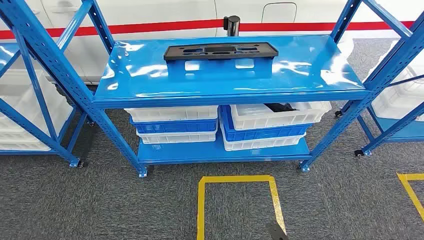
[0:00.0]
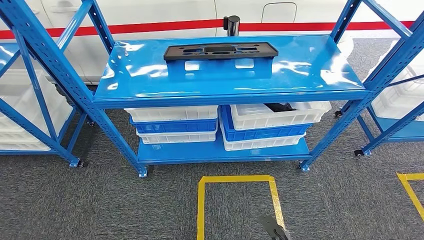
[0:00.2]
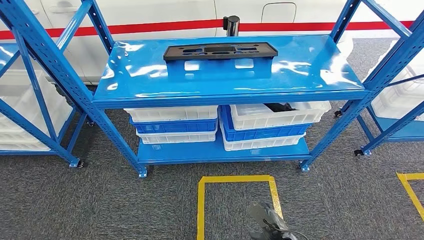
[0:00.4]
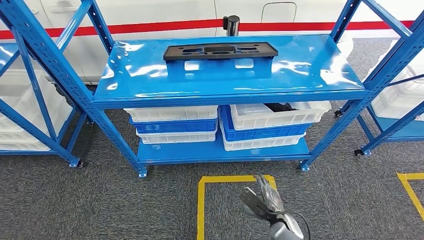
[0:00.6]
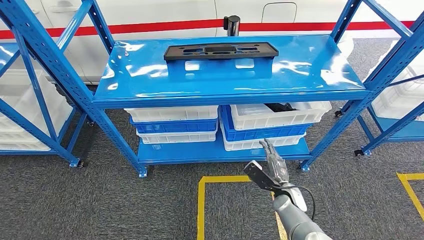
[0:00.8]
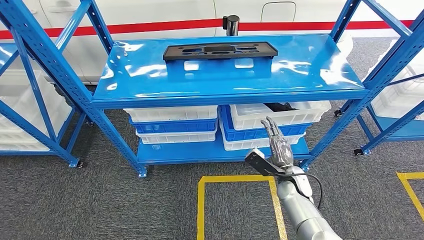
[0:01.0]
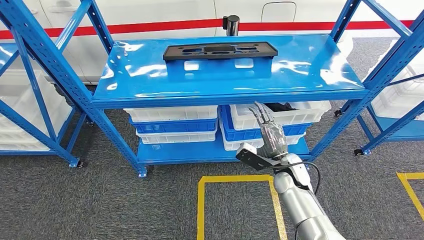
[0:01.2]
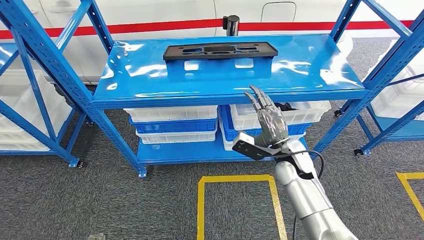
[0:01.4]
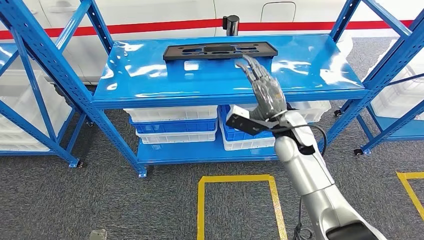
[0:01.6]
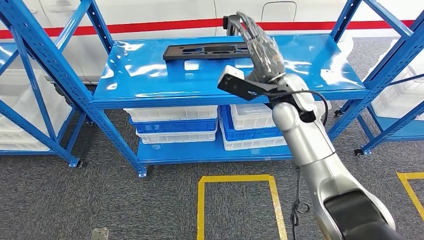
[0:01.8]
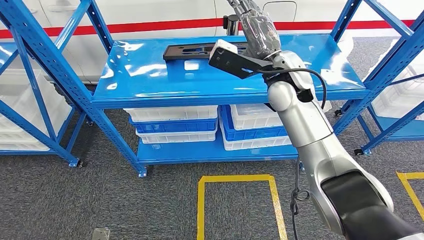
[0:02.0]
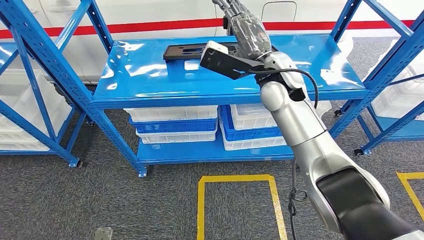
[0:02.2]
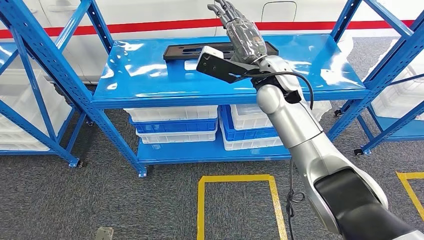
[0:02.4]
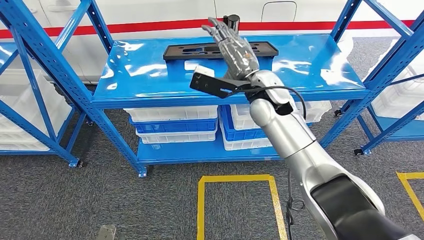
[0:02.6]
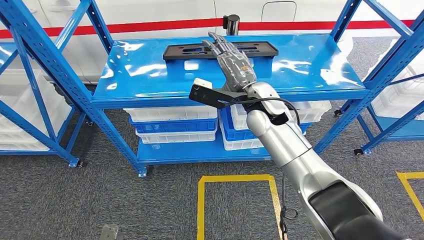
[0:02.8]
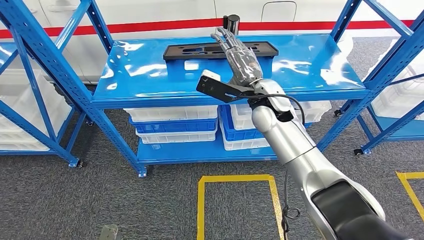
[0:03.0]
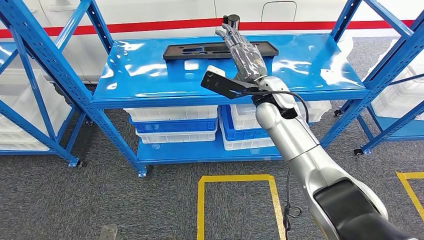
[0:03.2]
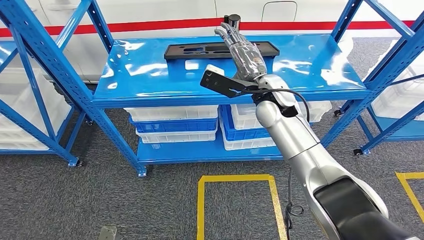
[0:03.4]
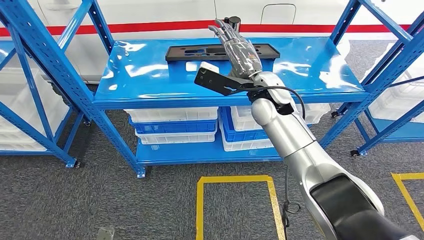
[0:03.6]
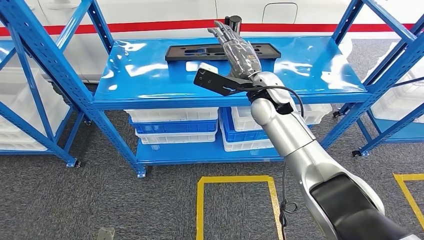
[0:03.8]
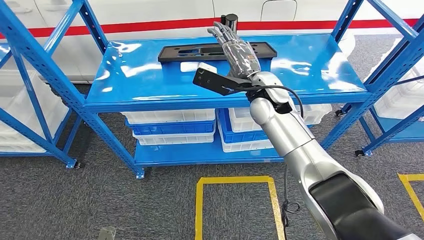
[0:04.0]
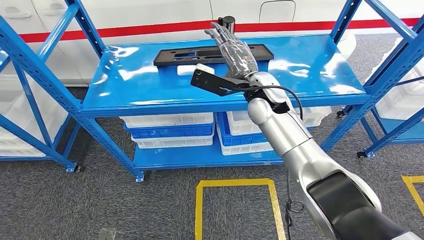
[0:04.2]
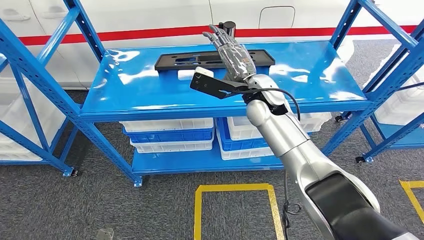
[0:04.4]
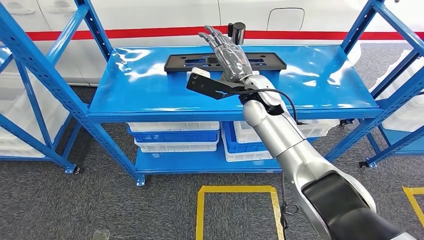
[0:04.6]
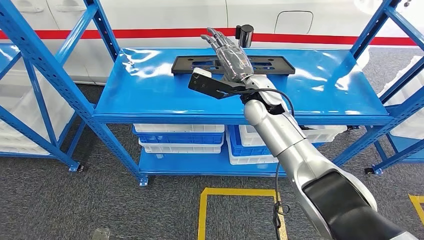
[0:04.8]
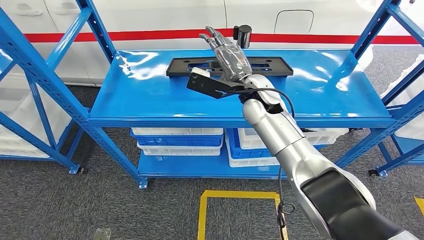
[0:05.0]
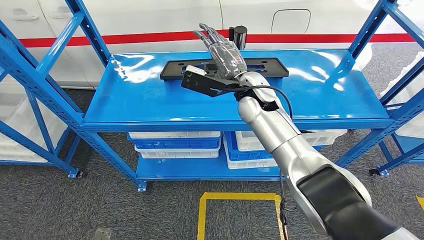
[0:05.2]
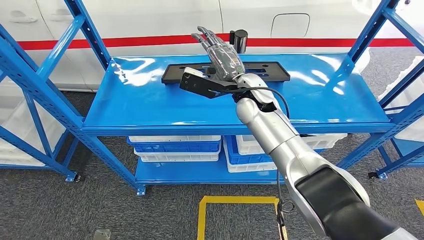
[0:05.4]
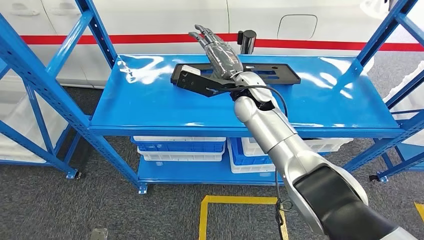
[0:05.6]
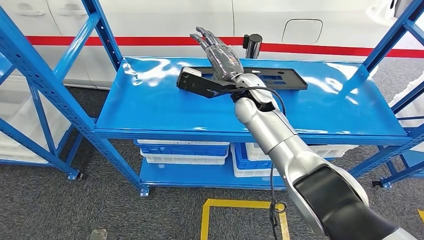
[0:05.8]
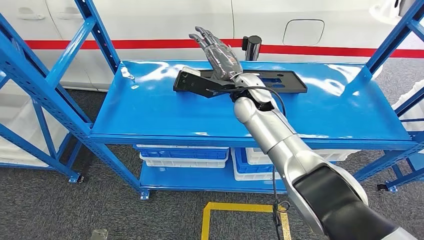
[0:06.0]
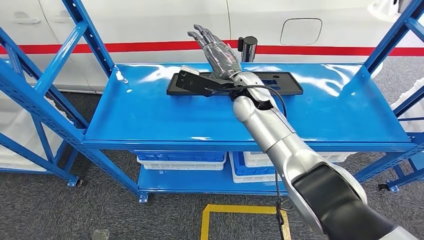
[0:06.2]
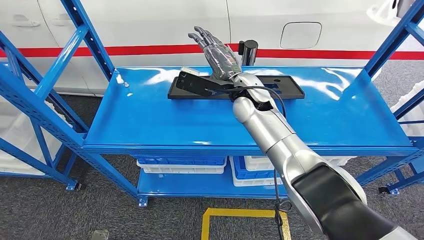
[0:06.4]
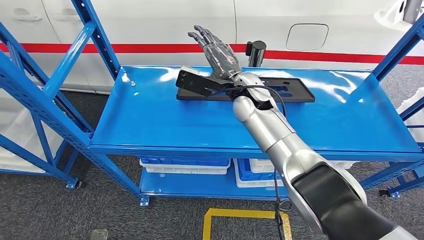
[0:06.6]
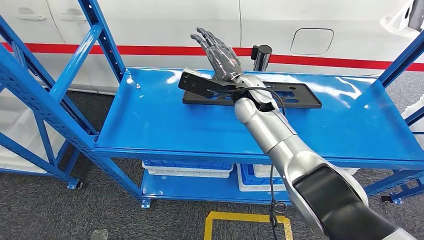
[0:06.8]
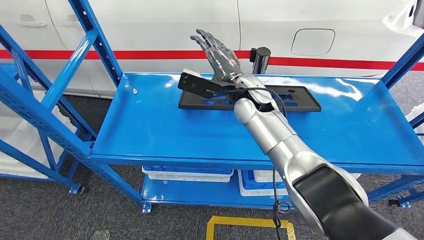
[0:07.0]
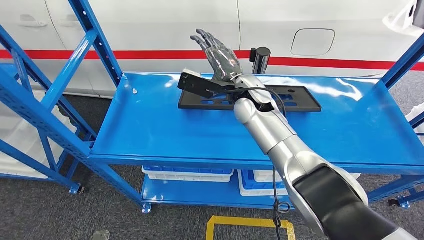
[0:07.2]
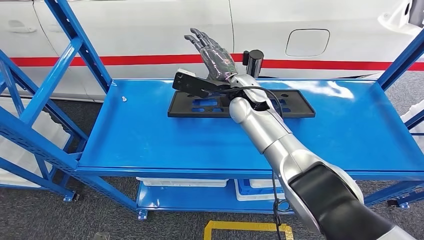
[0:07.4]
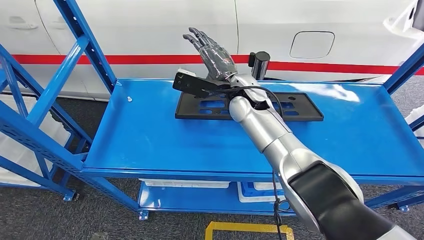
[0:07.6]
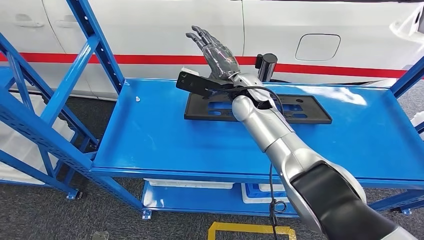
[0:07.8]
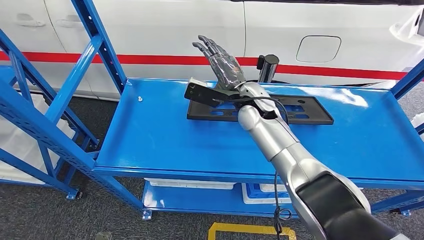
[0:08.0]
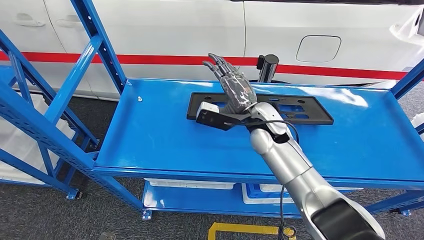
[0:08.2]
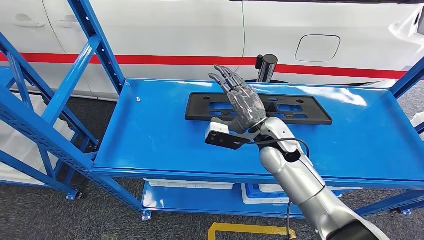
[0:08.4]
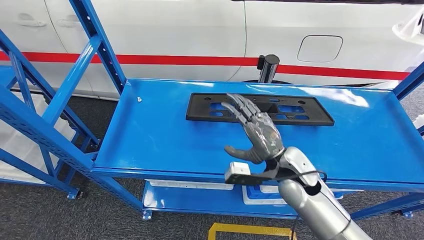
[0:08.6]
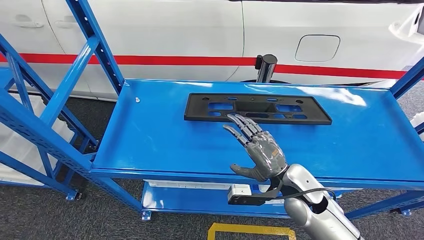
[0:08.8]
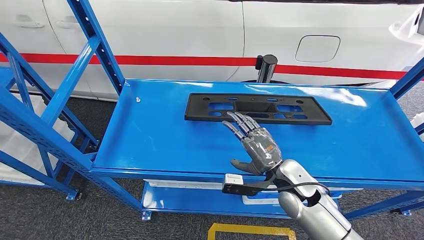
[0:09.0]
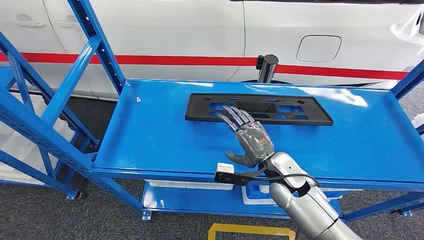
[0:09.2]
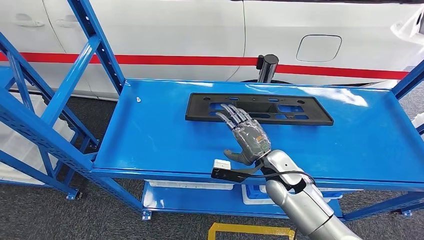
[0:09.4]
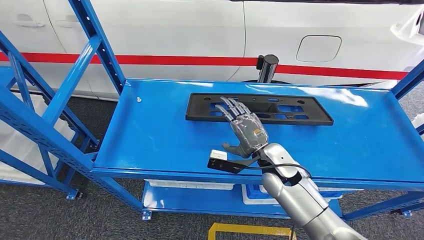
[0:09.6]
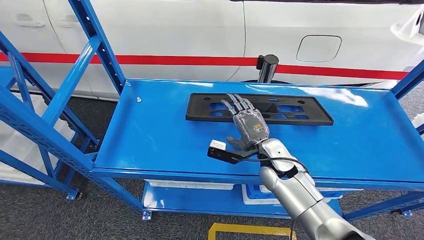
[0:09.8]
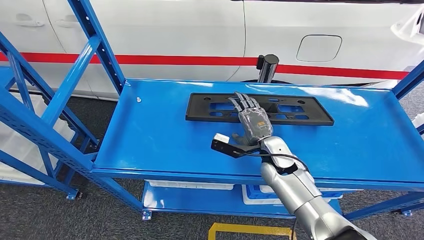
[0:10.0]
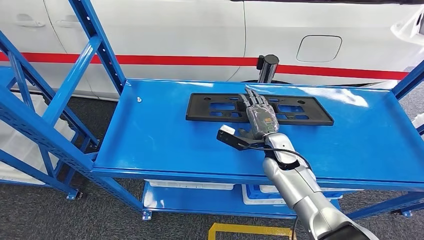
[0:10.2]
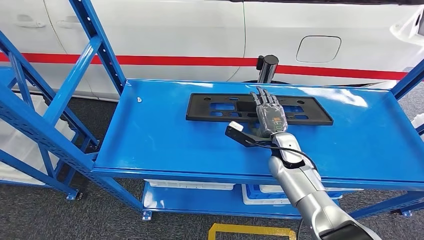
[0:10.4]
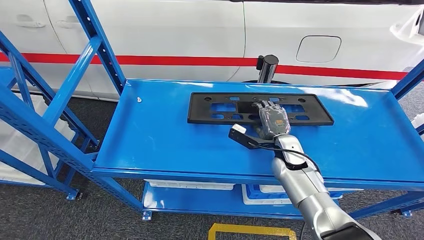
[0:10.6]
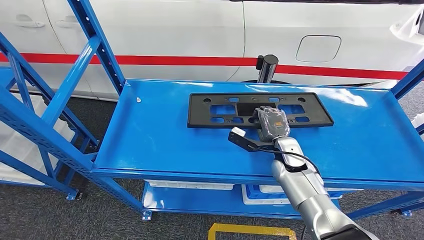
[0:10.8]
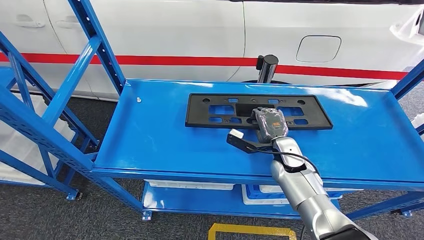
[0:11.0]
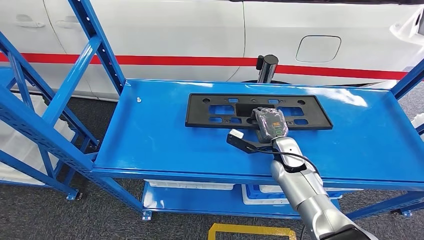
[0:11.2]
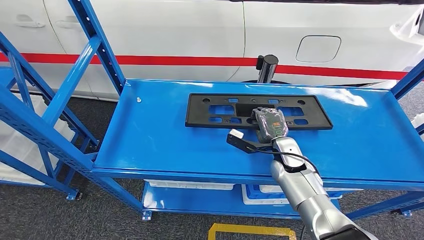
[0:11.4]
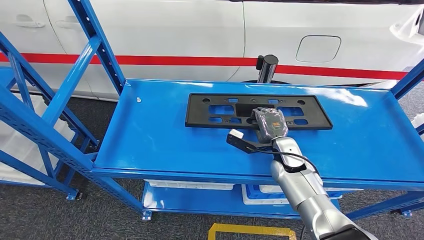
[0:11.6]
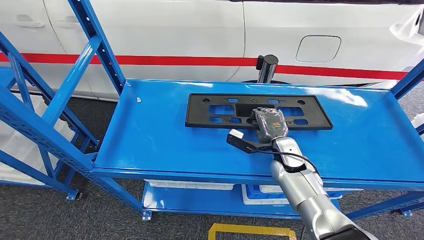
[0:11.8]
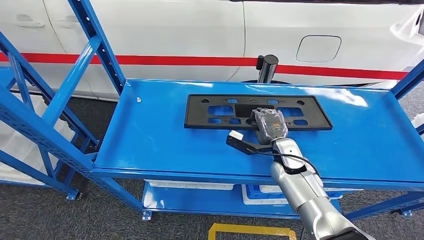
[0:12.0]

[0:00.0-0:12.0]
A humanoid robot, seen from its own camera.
0:01.6 to 0:03.0: The right hand heads upward and to the left, covering roughly 10 cm.
0:09.0 to 0:10.4: The right hand is displaced forward by about 10 cm.
0:10.4 to 0:12.0: The hands make only small movements.

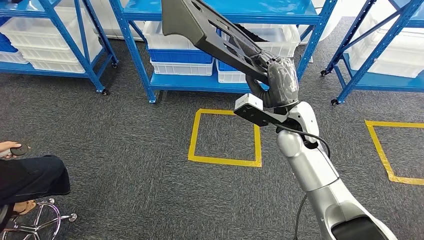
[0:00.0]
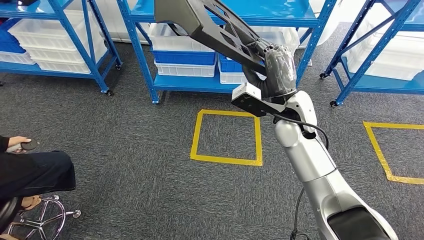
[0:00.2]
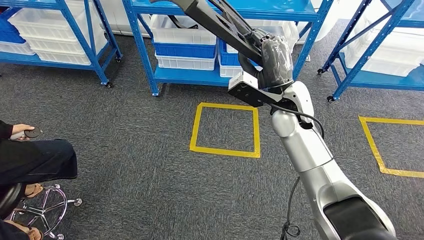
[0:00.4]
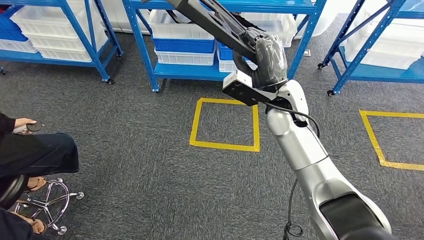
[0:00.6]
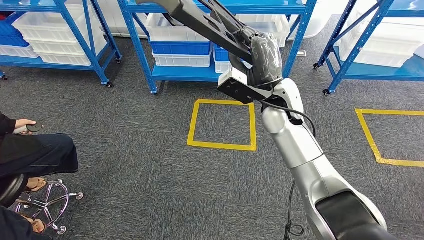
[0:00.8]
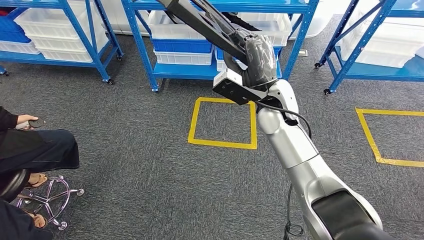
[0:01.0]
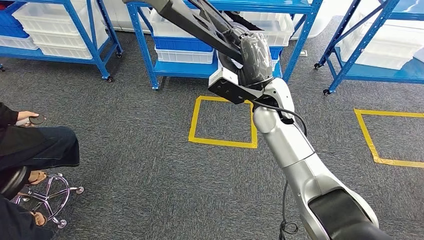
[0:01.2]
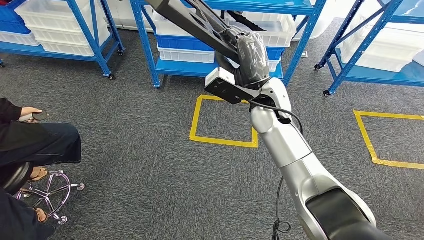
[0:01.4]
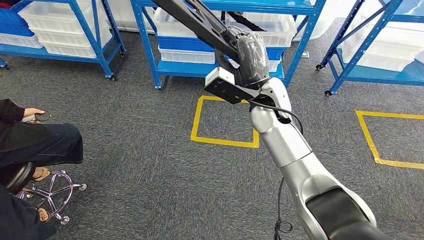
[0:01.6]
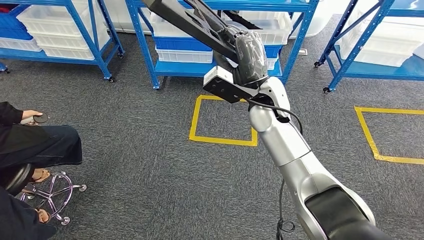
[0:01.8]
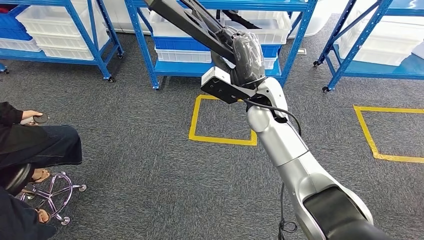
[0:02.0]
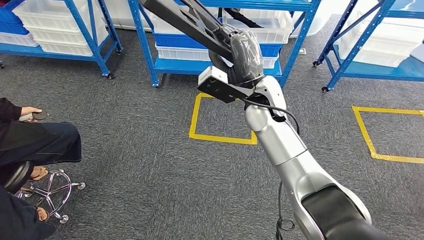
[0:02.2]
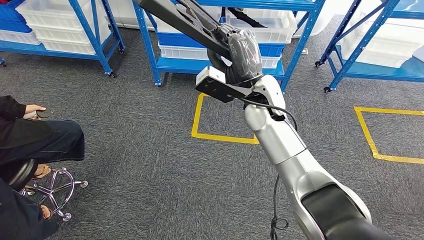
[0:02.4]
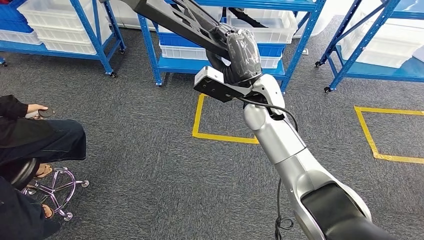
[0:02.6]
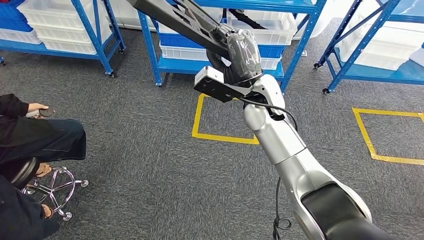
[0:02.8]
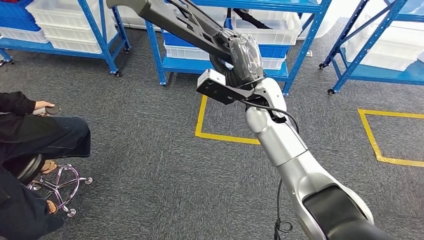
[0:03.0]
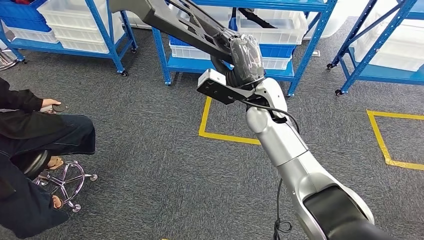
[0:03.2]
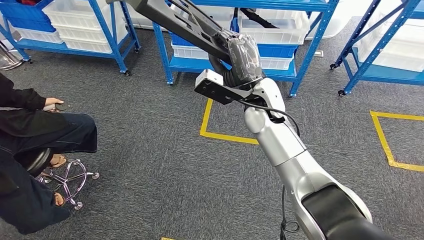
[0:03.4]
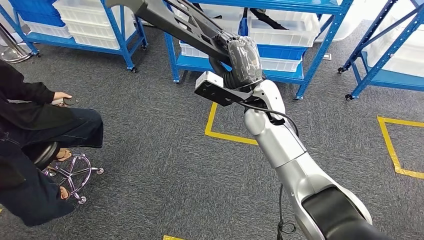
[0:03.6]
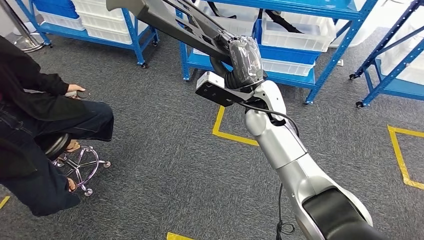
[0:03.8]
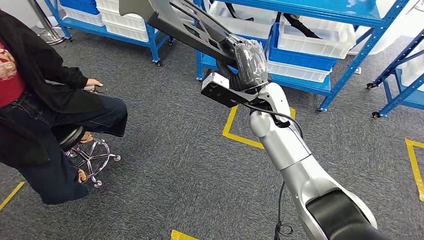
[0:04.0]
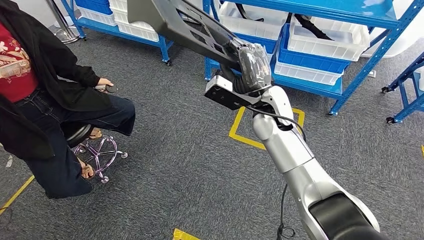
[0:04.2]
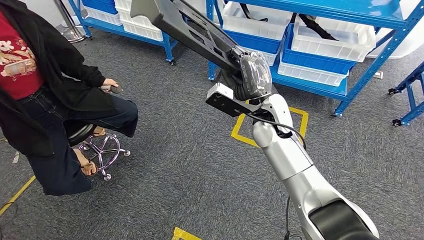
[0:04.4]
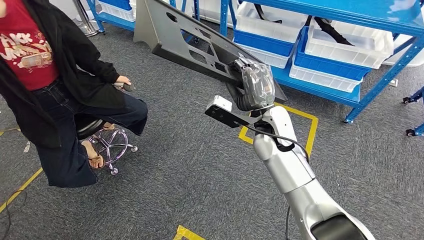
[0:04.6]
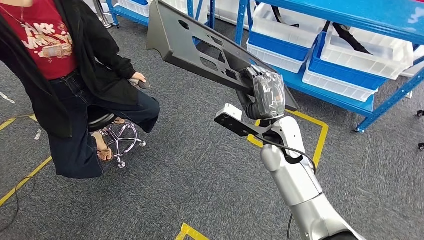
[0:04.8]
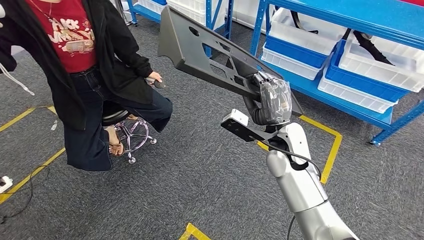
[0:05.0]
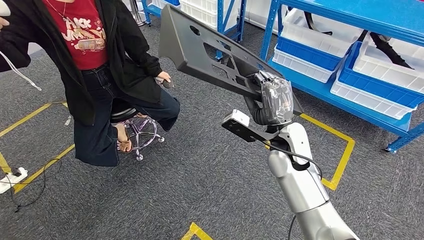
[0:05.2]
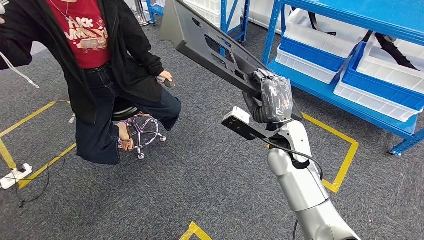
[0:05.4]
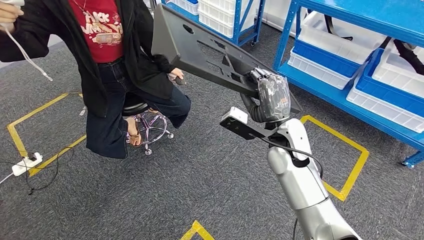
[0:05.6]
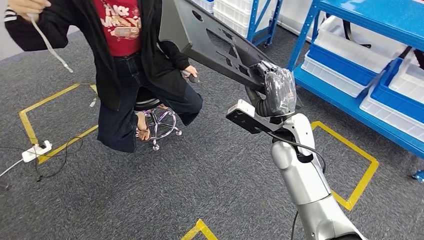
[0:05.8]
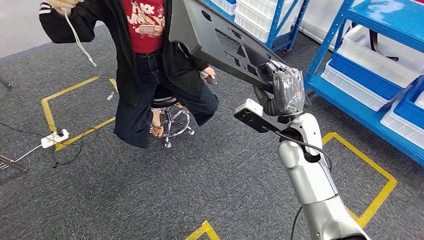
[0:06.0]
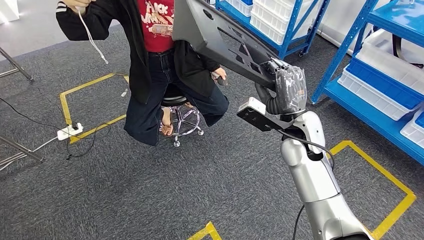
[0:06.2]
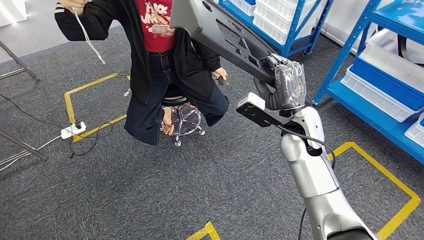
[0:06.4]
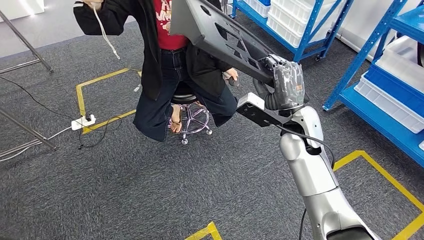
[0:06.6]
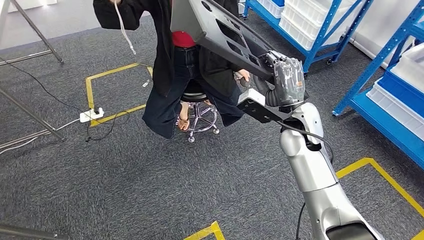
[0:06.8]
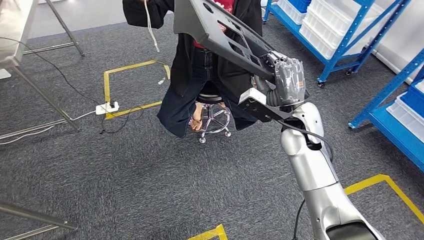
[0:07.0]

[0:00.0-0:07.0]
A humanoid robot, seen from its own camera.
Step, 0:00.0 to 0:02.8: Move the large material to the workbench.
